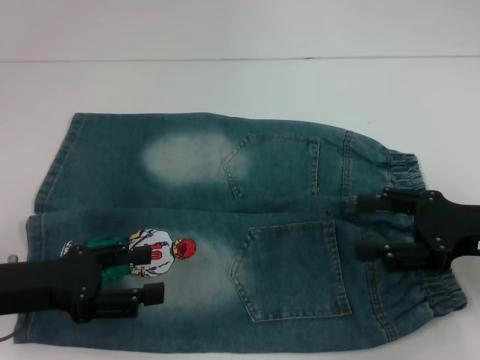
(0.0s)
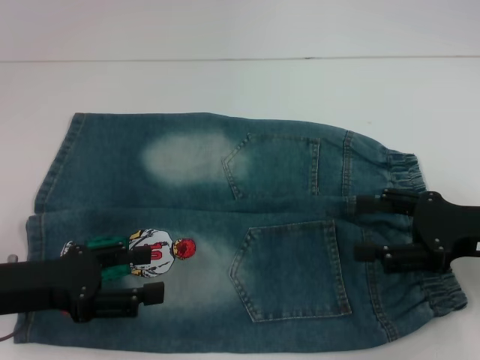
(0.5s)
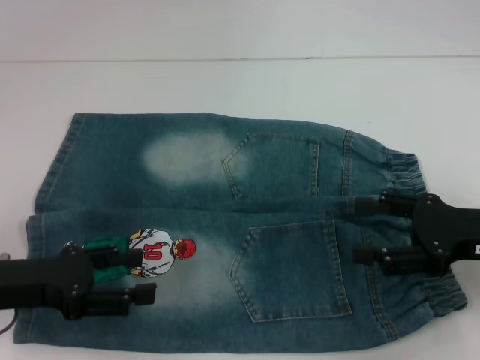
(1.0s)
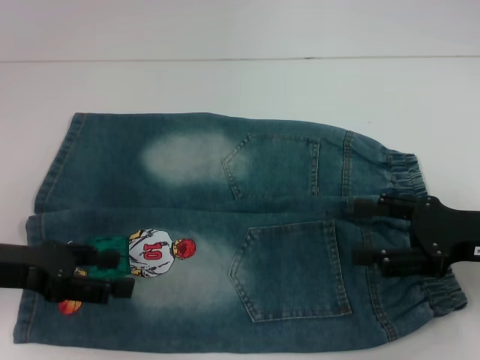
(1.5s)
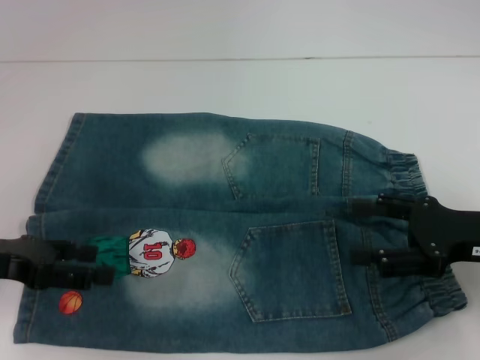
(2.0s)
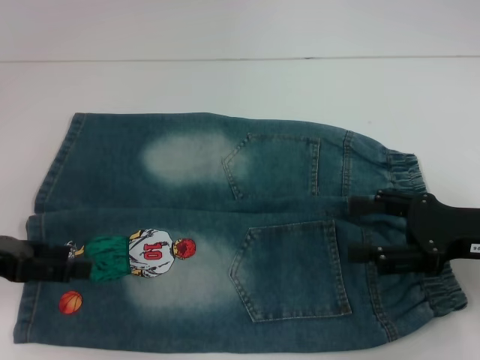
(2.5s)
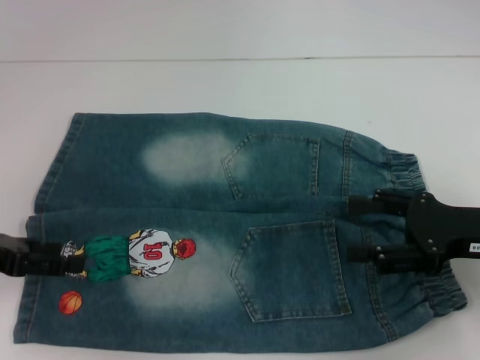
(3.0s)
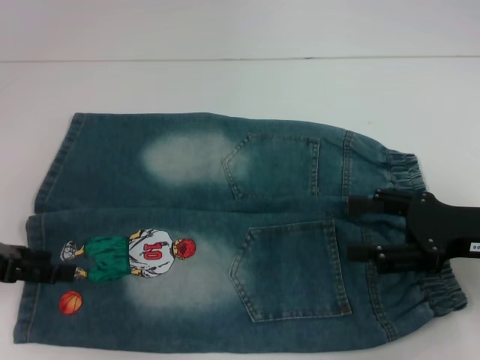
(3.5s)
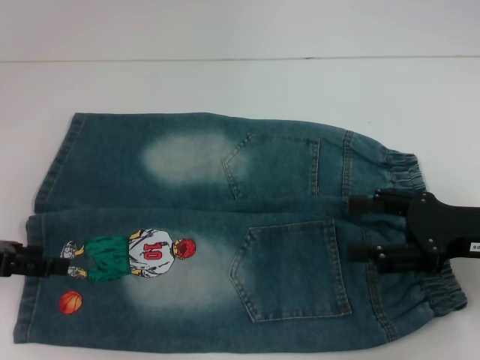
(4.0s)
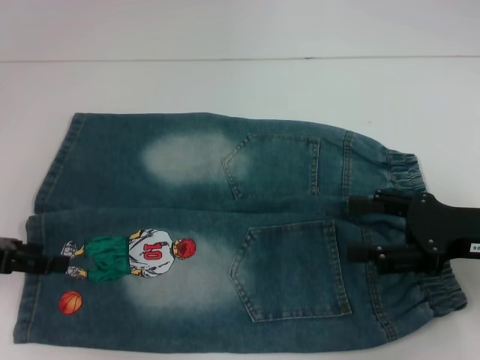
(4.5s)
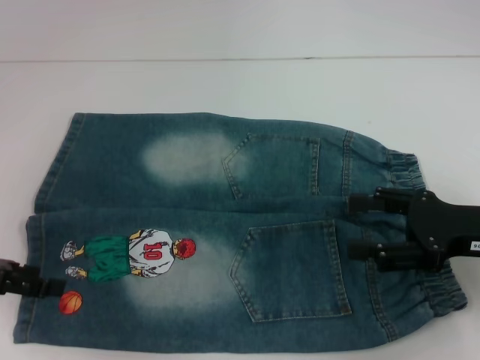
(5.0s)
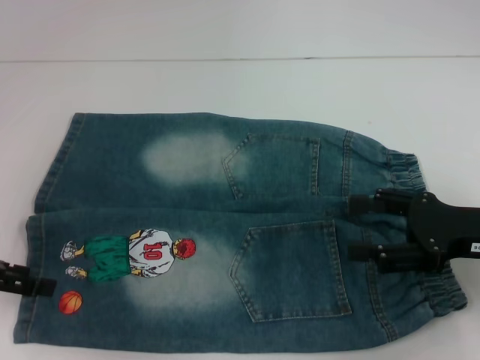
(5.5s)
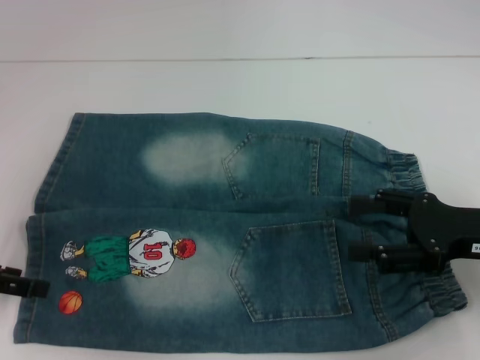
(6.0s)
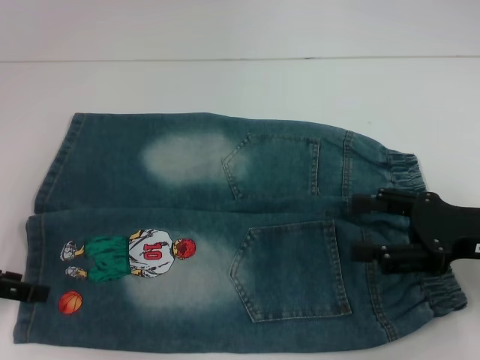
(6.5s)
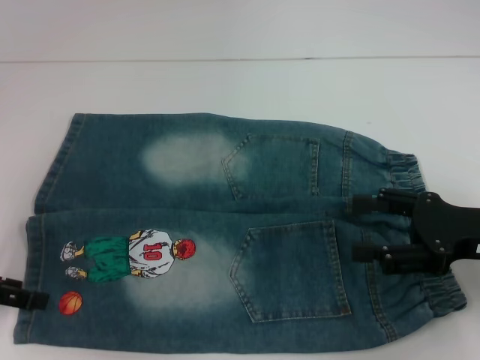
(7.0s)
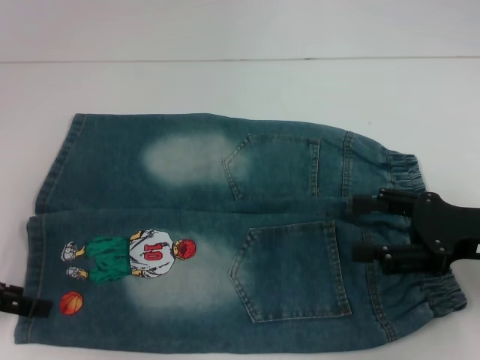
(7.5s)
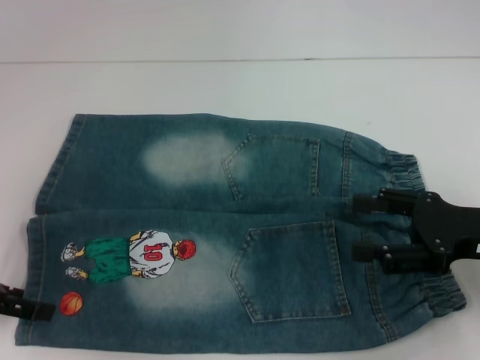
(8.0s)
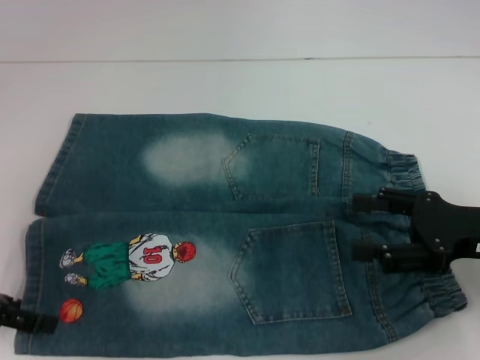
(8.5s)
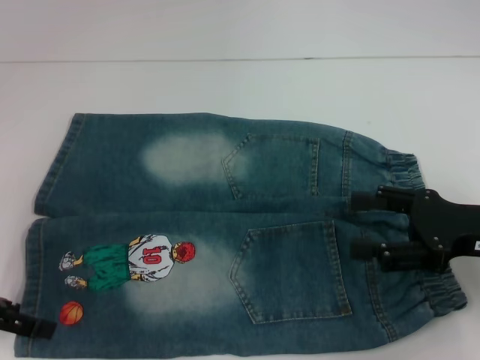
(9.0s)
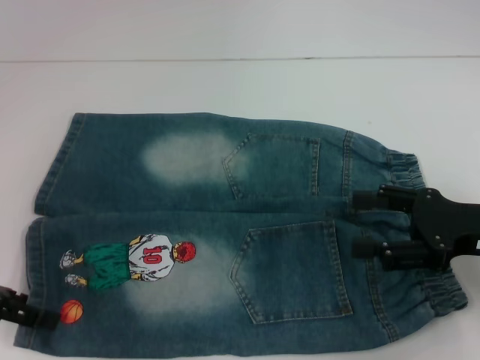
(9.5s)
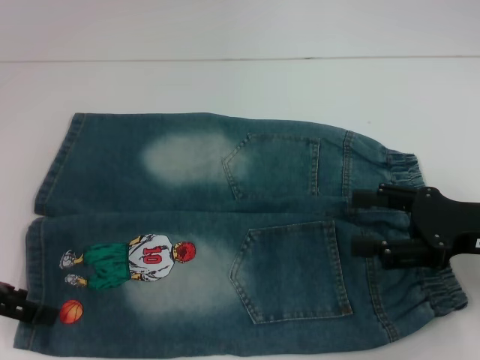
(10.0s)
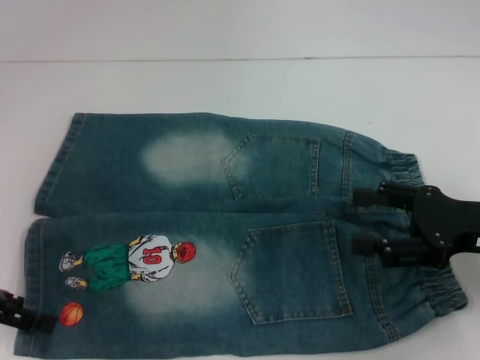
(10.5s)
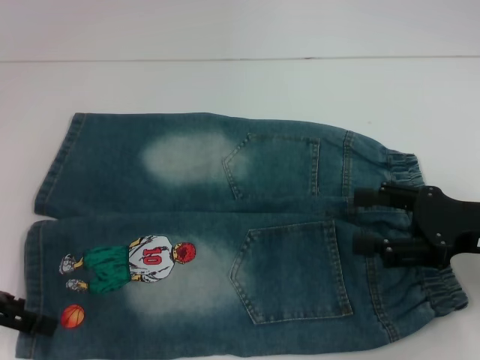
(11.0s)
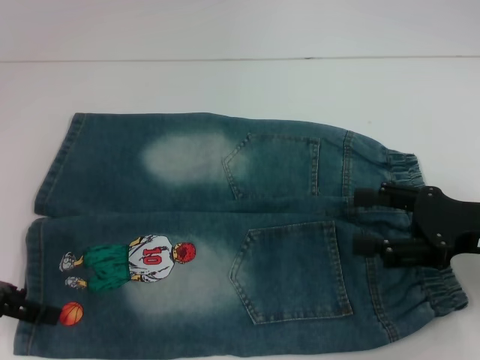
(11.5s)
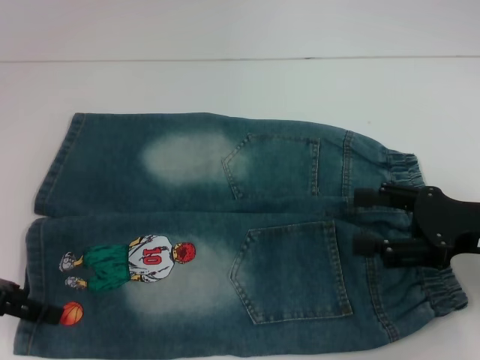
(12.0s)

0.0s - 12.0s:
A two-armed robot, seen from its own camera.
0.0s - 2.0s: The left gripper moves some 5 cm.
2.0s - 4.0s: The grippers move only a little.
4.0s - 10.0s: There are only small adjustments of the grippers.
10.0s - 12.0s: The two grippers keep their place.

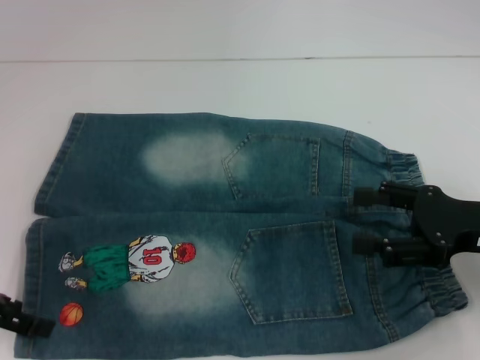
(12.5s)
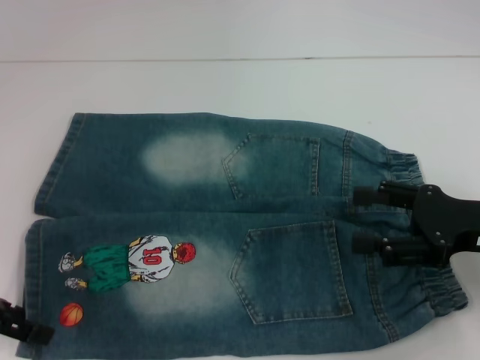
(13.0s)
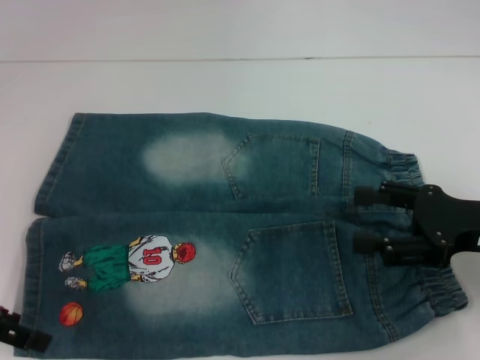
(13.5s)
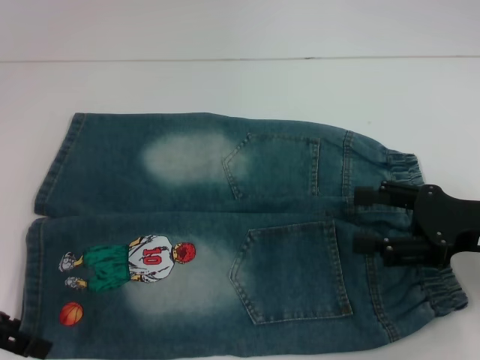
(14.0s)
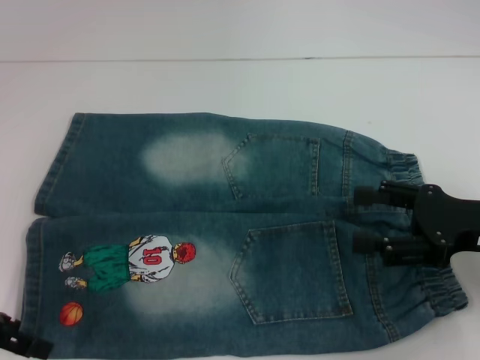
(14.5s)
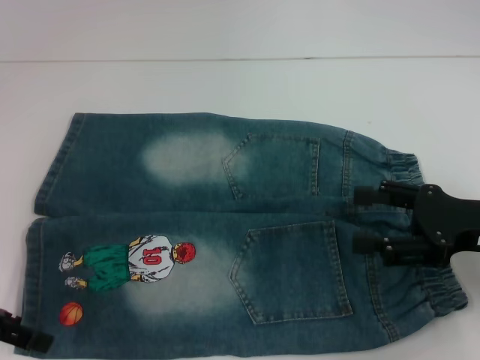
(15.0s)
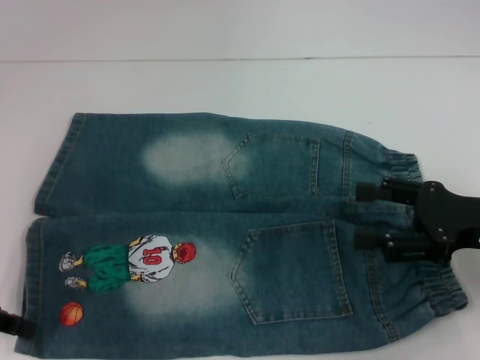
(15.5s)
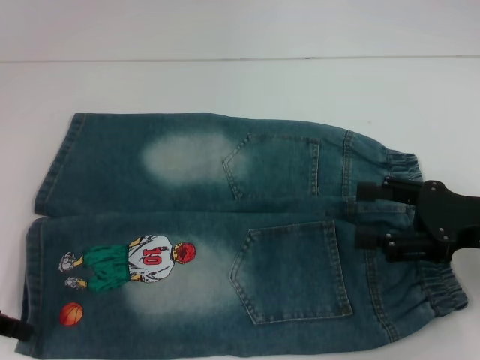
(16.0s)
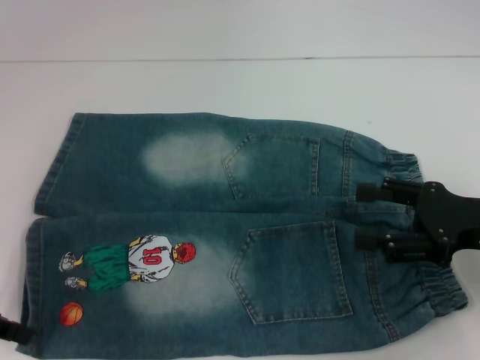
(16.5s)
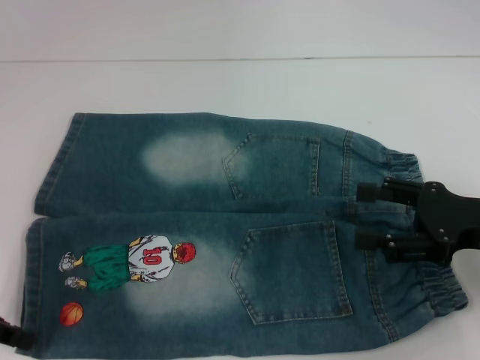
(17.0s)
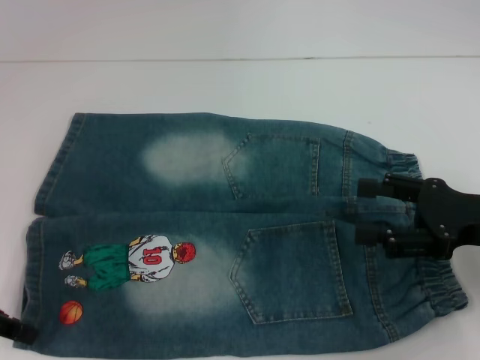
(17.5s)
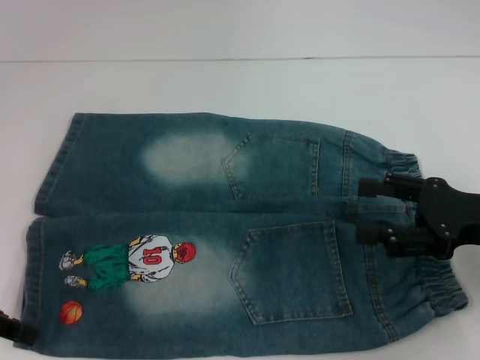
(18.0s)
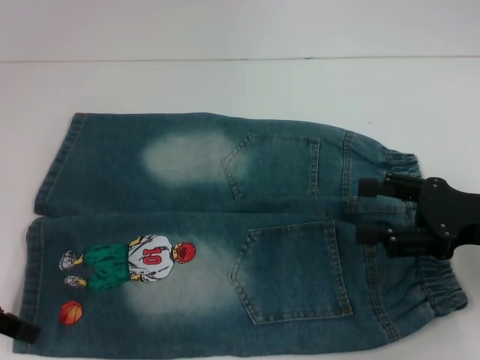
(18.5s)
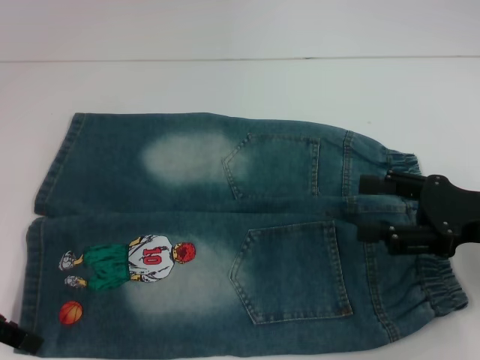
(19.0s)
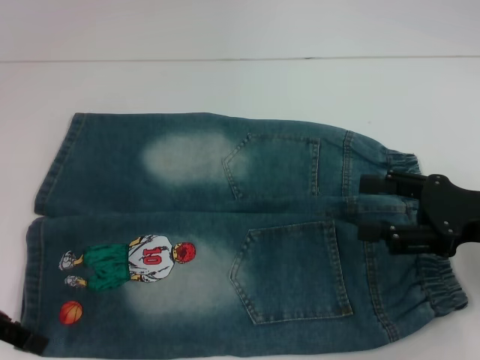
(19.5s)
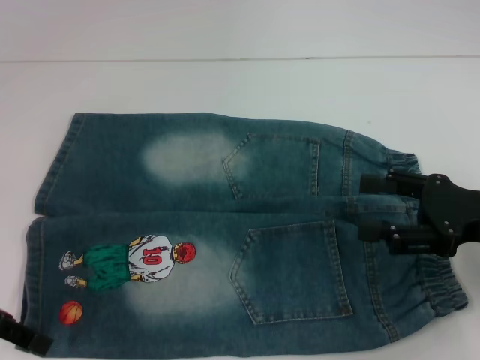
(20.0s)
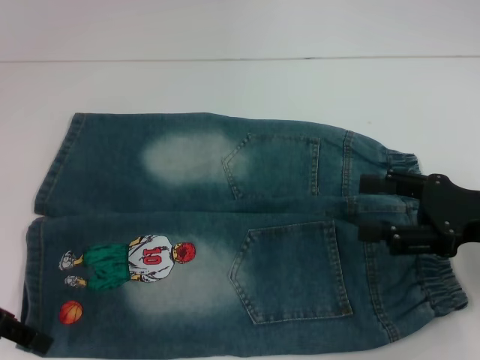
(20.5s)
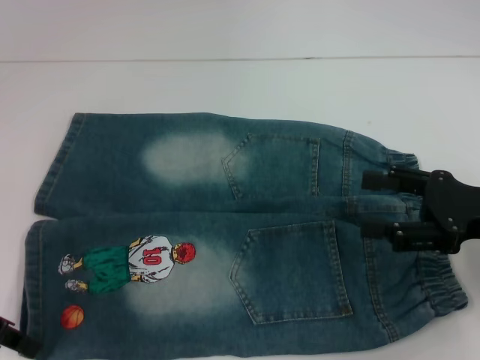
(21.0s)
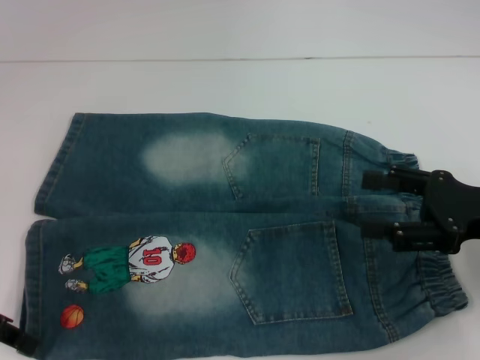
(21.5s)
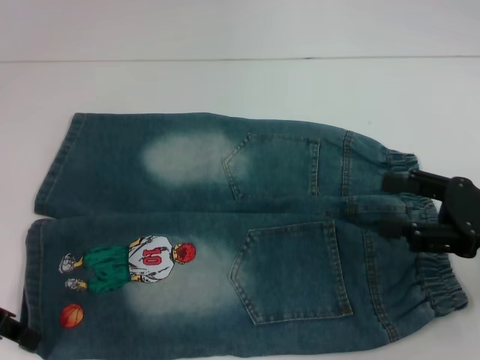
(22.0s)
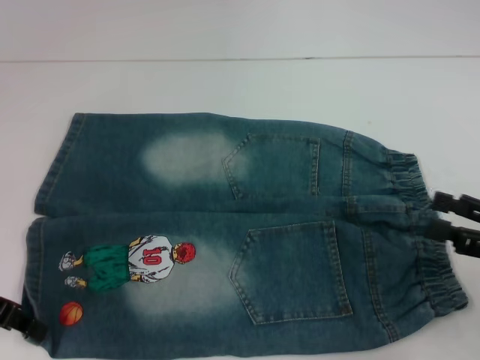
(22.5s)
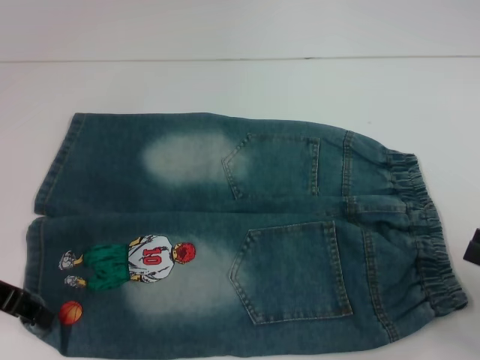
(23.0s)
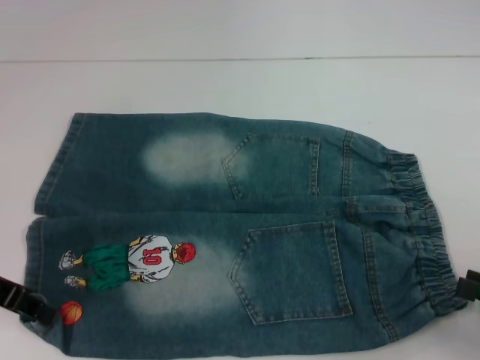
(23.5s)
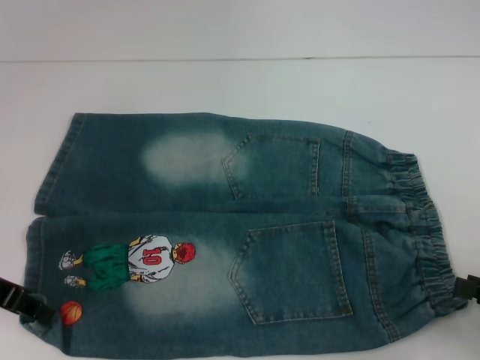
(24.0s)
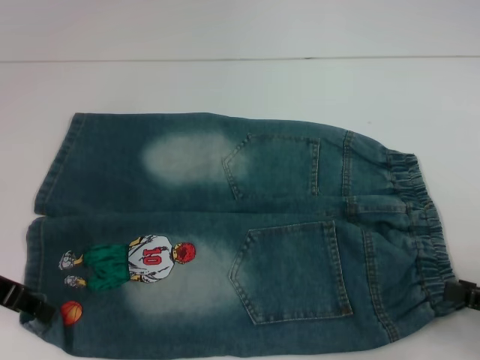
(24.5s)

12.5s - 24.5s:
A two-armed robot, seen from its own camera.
12.5s - 14.5s: Neither gripper changes place.
16.5s - 18.5s: Both grippers stay put.
18.5s - 20.5s: Both grippers stay put.
20.5s - 22.5s: The right gripper shifts about 10 cm to the right and backward, while the left gripper closes its fingers.
22.5s - 24.5s: The right gripper ends up some 5 cm from where it was.

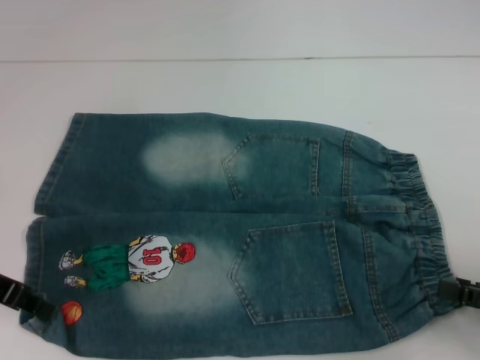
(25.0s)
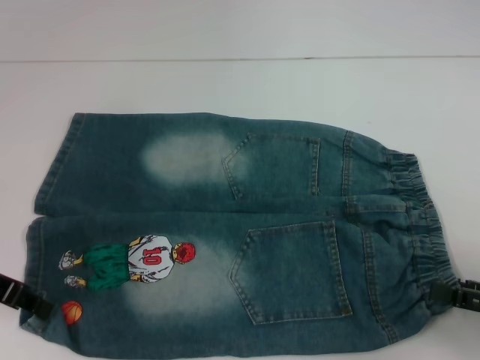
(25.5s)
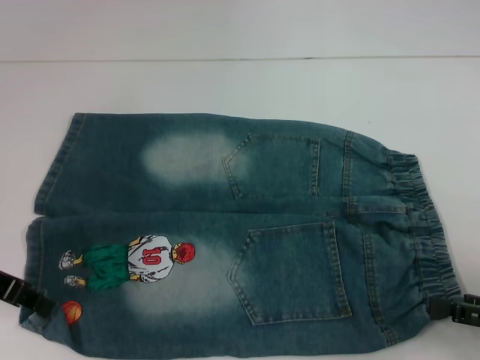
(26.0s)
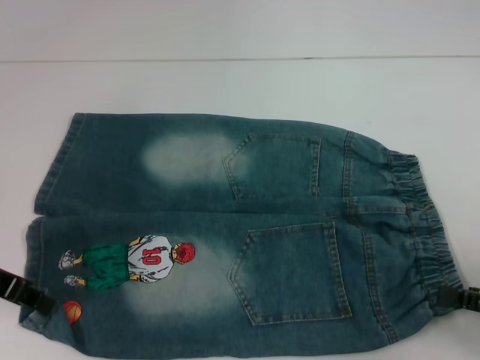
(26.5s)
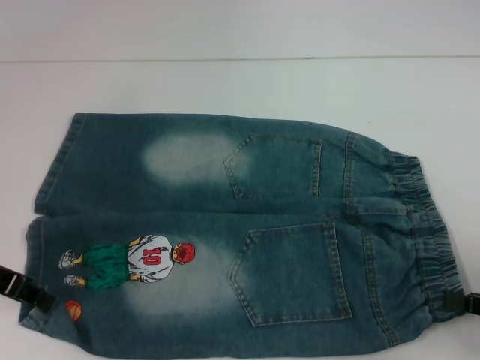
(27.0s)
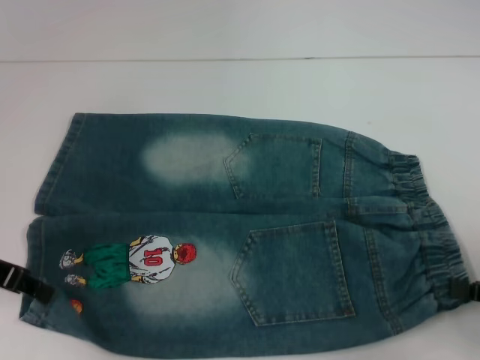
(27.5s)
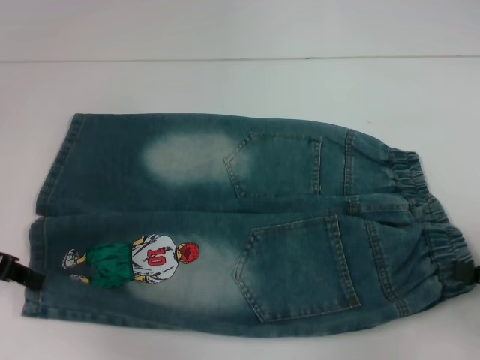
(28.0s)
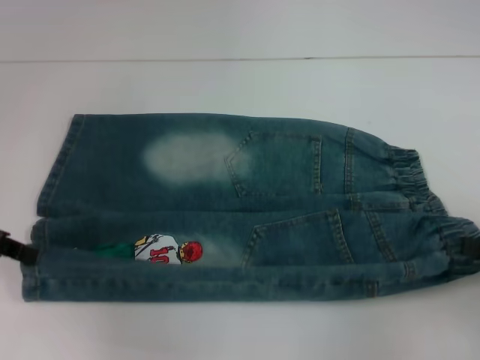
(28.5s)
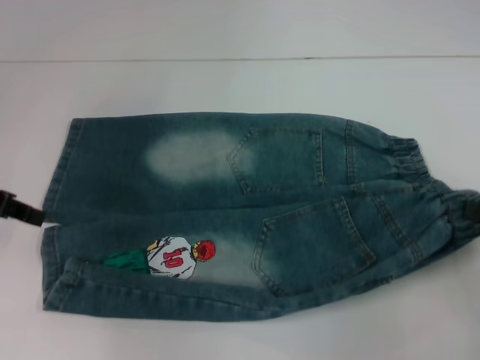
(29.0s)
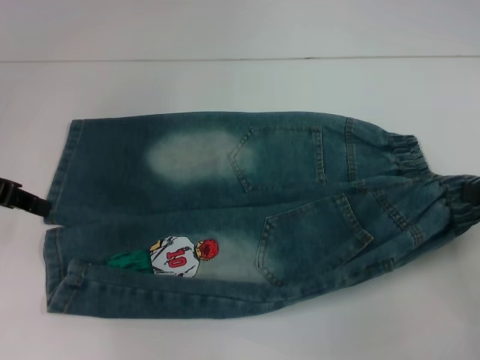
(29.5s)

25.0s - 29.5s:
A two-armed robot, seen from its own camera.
Step, 25.0s - 27.0s: Hold the lower right waistband with your right hand.
25.0s - 27.0s: The right gripper closes.
27.0s - 29.5s: The left gripper heads upward, covering roughly 5 cm, while the right gripper moves forward and upward, approximately 10 cm.
